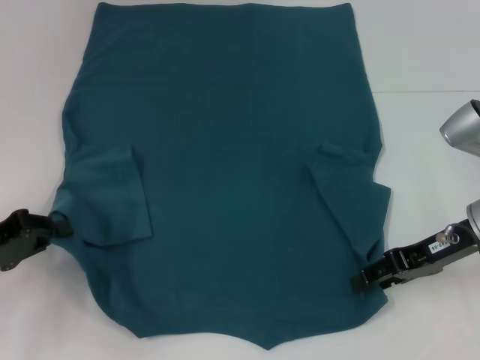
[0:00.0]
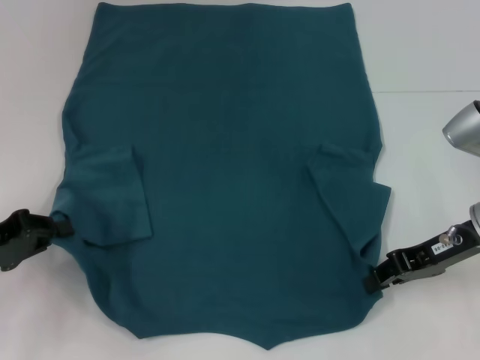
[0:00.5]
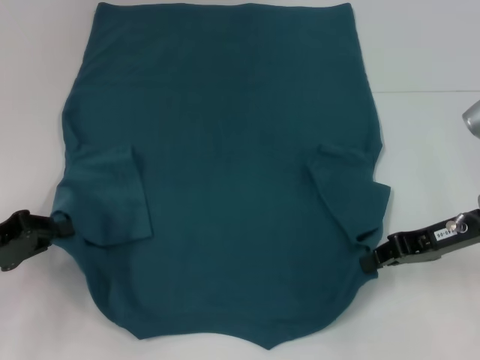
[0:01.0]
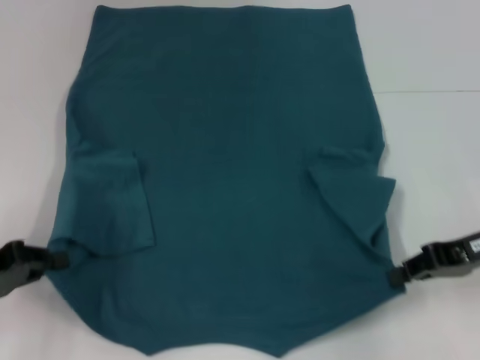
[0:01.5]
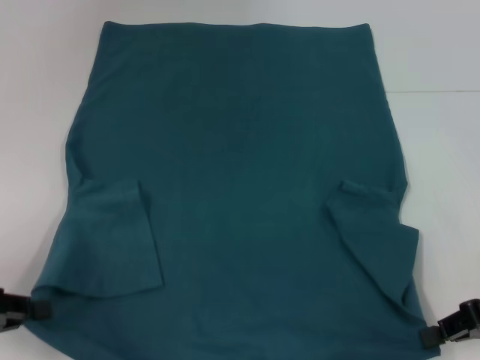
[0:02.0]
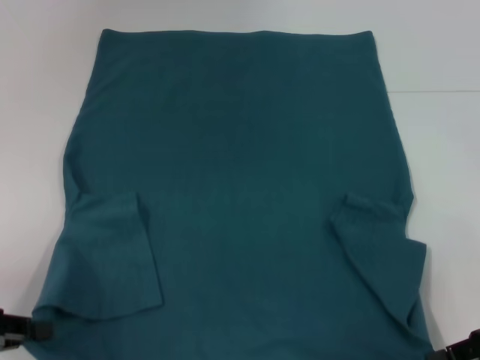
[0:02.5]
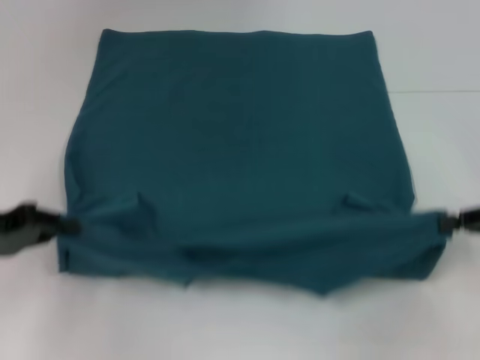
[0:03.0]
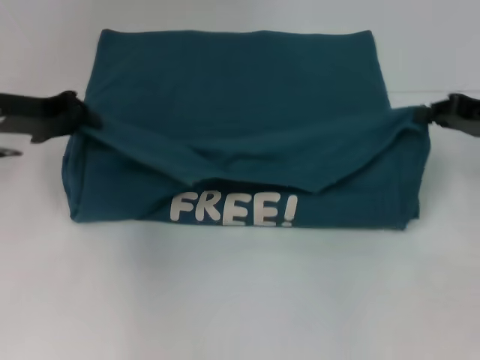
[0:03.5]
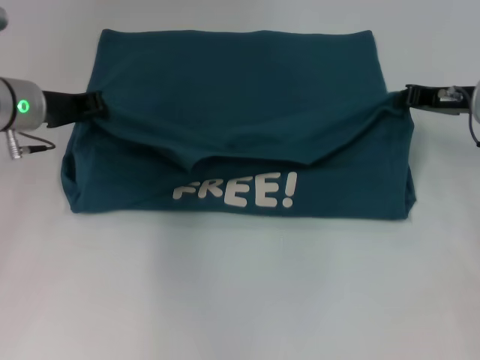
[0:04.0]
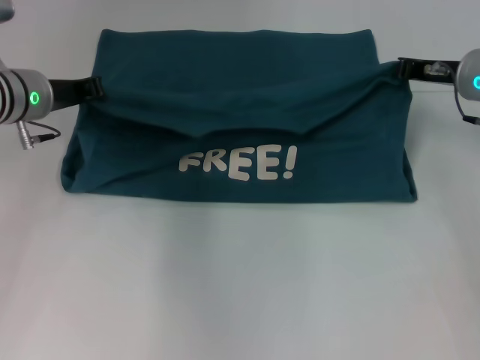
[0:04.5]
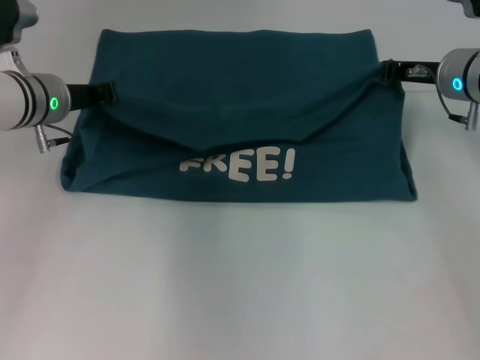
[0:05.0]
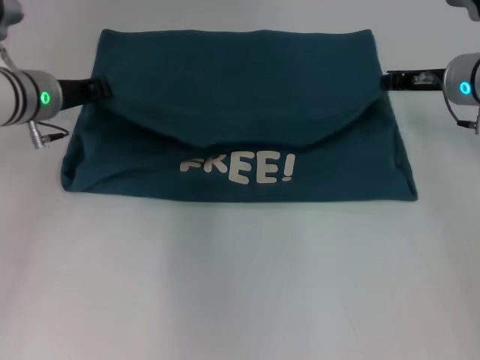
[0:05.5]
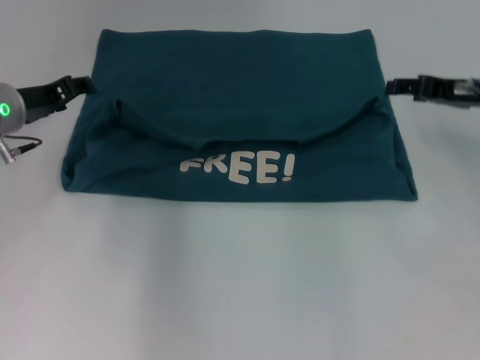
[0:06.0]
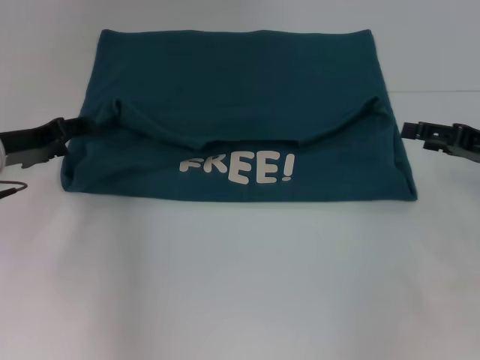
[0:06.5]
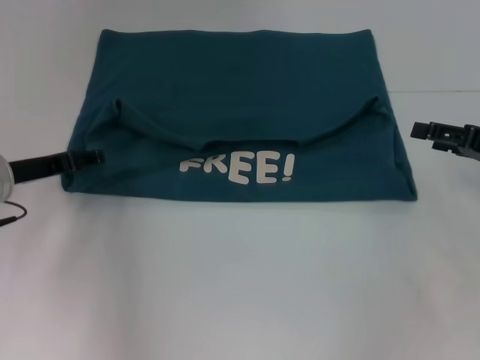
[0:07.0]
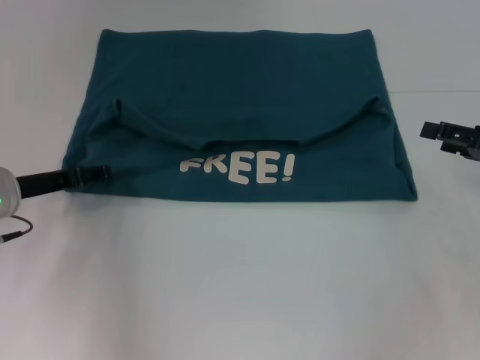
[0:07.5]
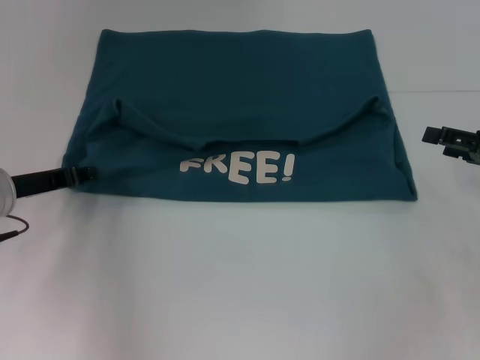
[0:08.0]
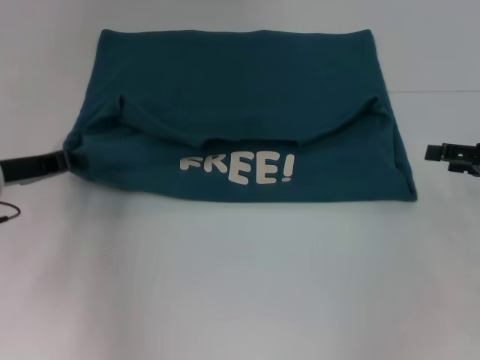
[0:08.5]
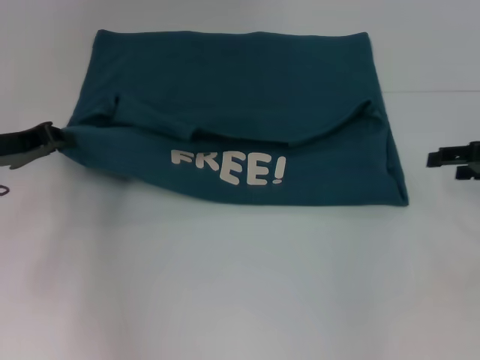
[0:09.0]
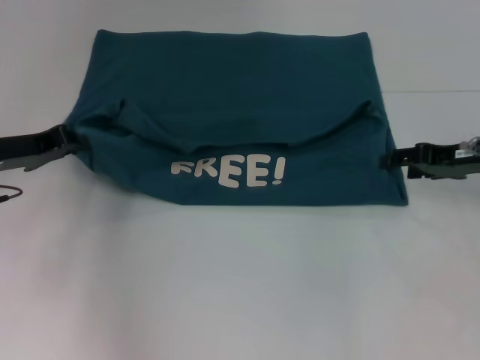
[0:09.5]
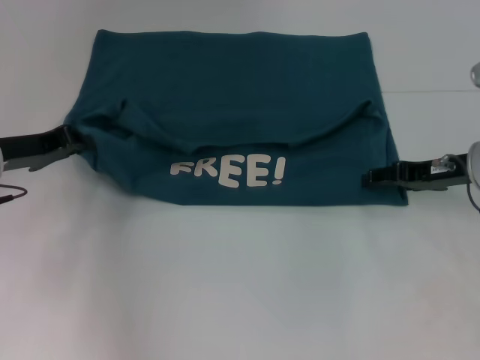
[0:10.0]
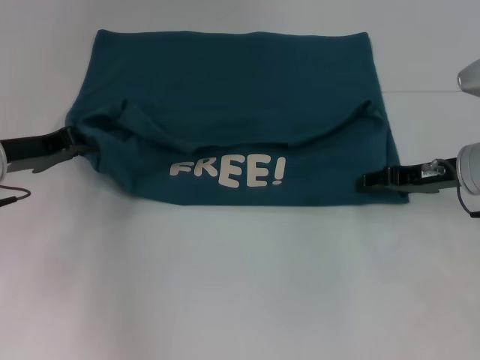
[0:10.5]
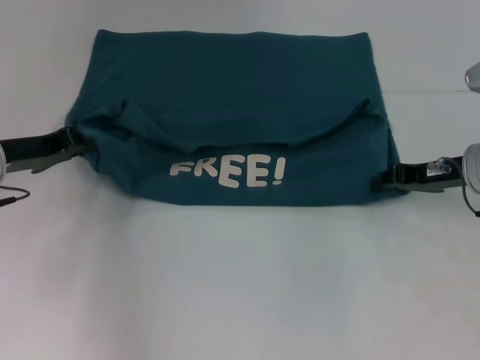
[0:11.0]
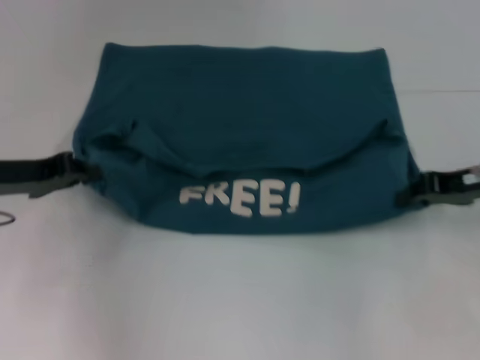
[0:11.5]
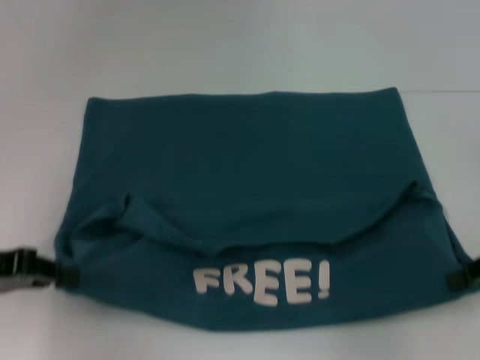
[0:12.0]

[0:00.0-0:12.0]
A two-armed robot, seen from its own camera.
Step, 0:01.5 to 0:05.5: Fold the clothes to the left.
Step, 0:01.5 to 0:05.5: Fold the clothes to the right.
0:00.0 to 0:02.0: The right gripper is displaced to the right and backward by roughly 10 cm, and closes up. The left gripper is displaced backward by approximately 5 cm.
0:02.0 to 0:04.0: The right gripper goes approximately 15 cm forward. Meanwhile the left gripper travels forward and to the right by approximately 25 cm.
0:04.0 to 0:06.0: The left gripper opens. The right gripper opens up.
0:06.0 to 0:08.0: The left gripper goes some 10 cm backward and downward; the right gripper shifts approximately 10 cm backward and to the right.
0:08.0 to 0:10.0: The right gripper is displaced to the left and forward by roughly 10 cm, while the left gripper closes its fingers.
0:10.0 to 0:12.0: The left gripper shifts roughly 10 cm backward. Meanwhile the right gripper goes some 10 cm backward and to the right, and closes up.

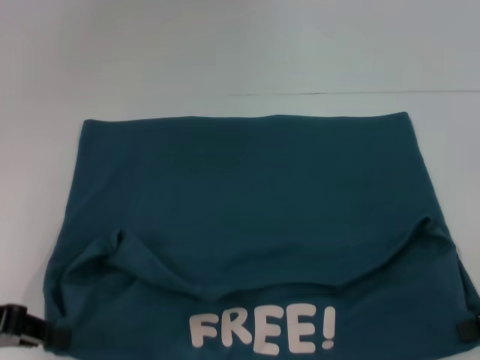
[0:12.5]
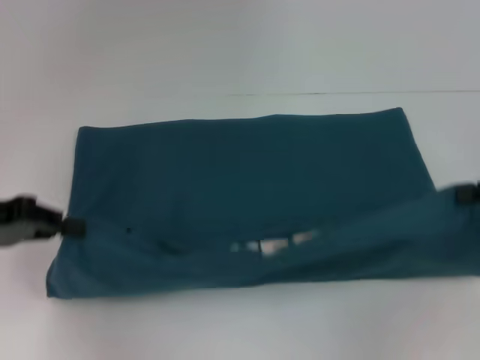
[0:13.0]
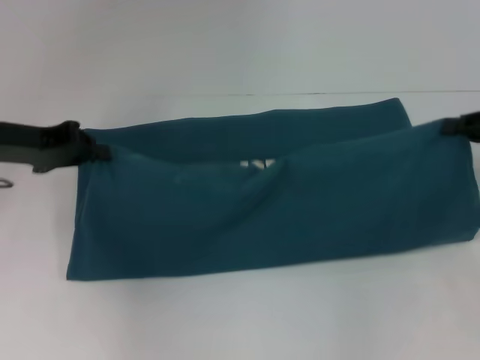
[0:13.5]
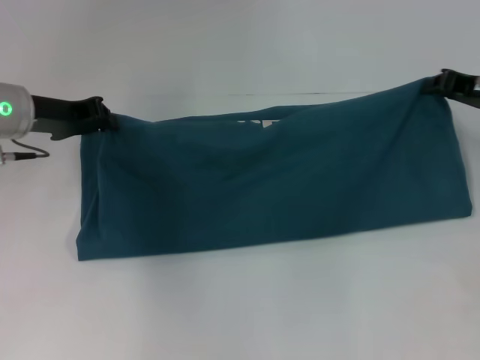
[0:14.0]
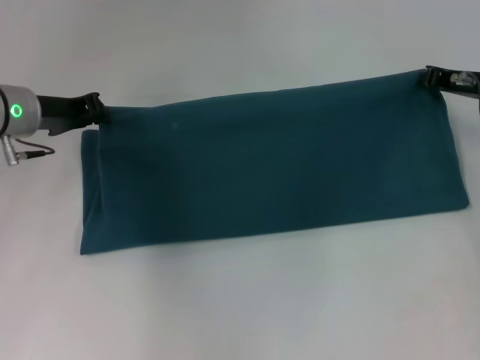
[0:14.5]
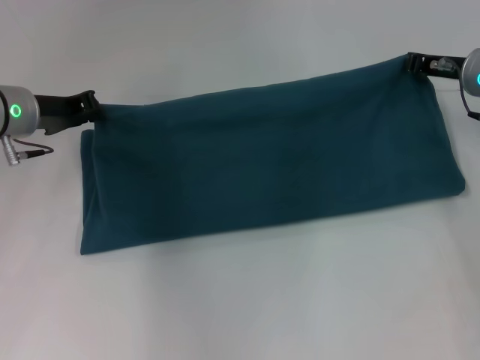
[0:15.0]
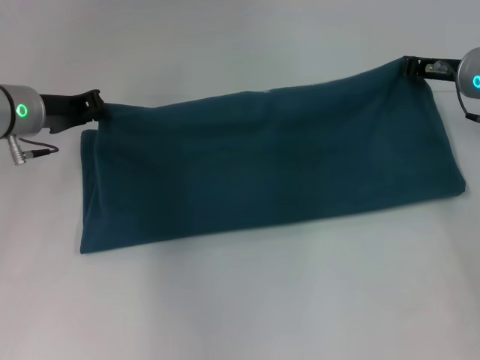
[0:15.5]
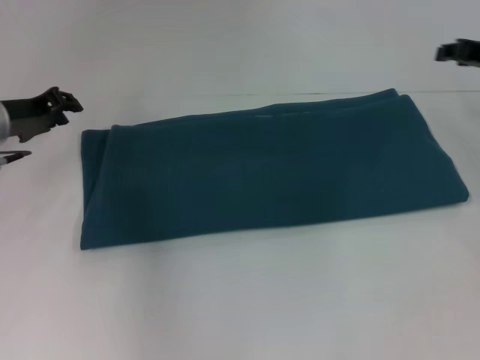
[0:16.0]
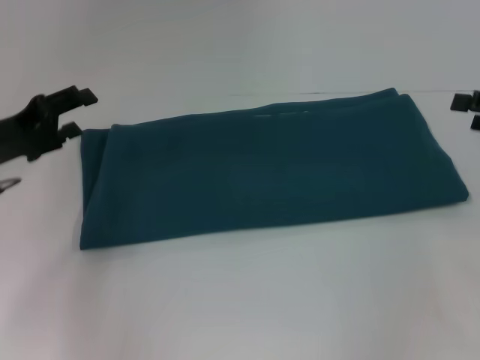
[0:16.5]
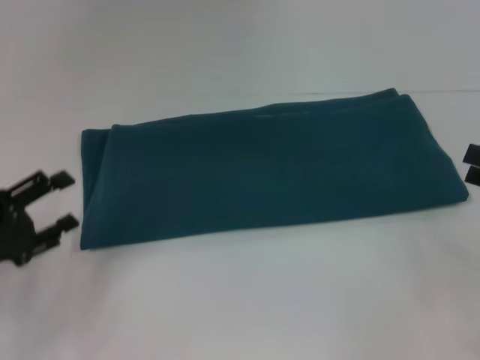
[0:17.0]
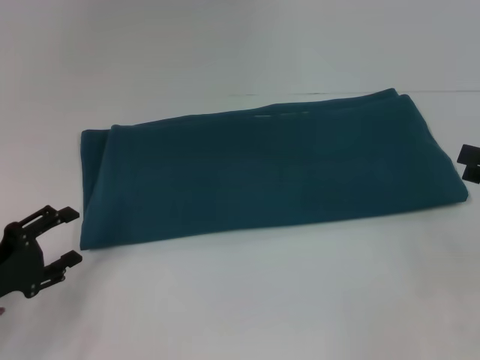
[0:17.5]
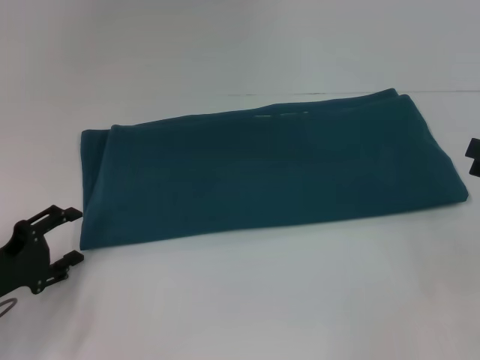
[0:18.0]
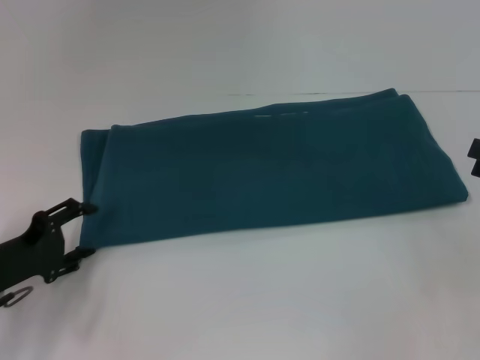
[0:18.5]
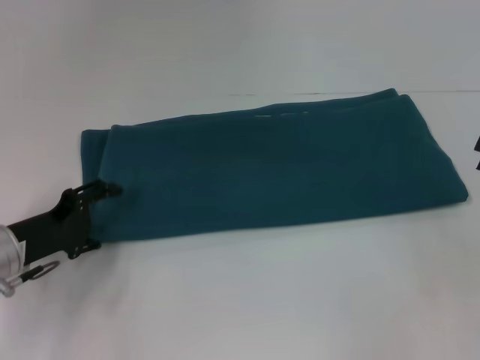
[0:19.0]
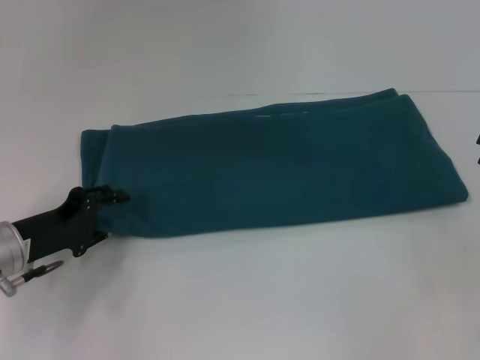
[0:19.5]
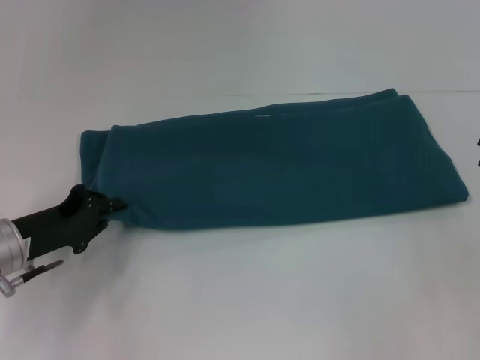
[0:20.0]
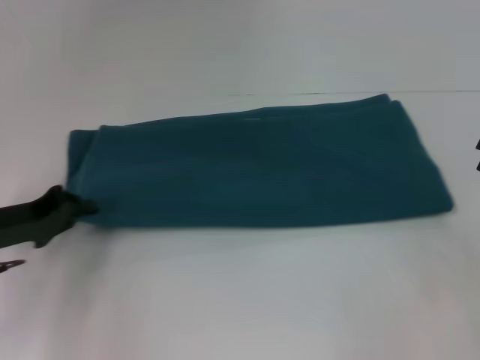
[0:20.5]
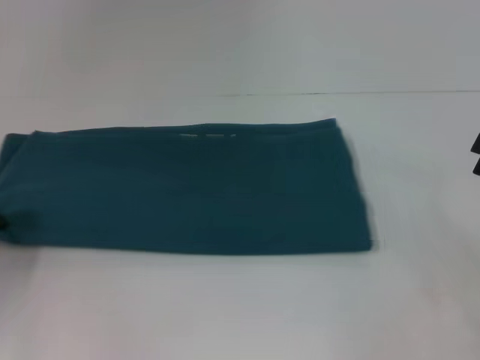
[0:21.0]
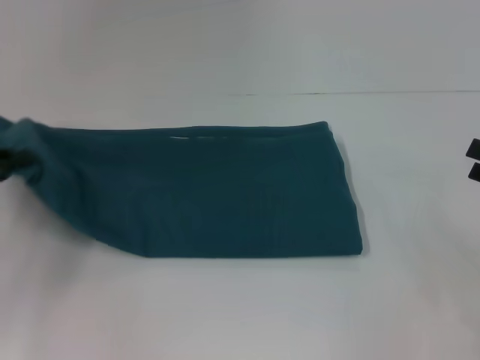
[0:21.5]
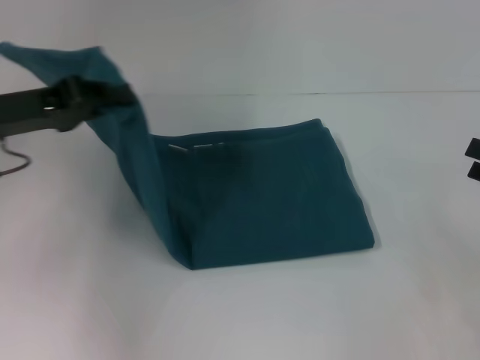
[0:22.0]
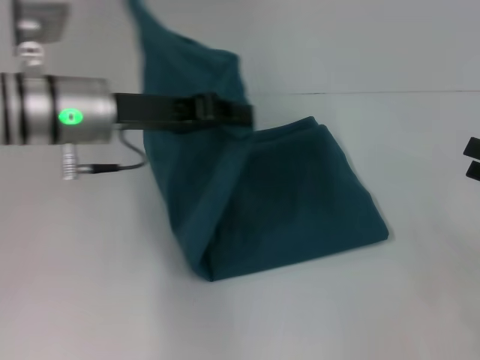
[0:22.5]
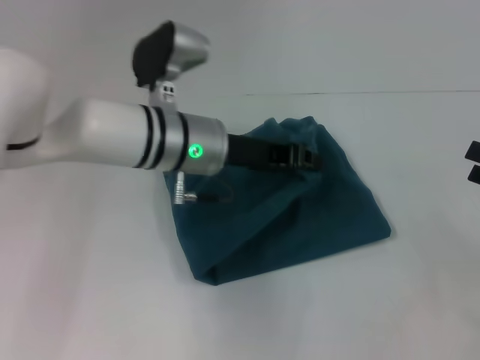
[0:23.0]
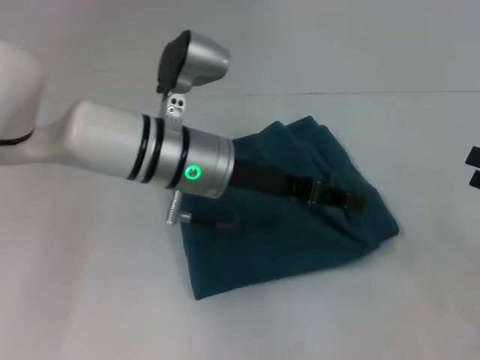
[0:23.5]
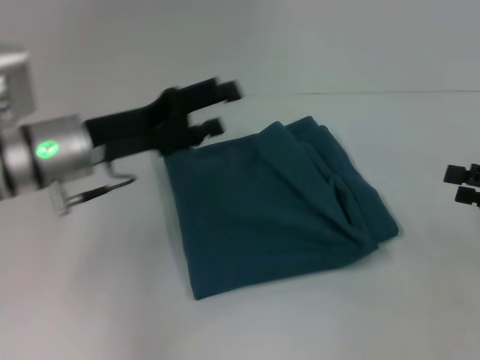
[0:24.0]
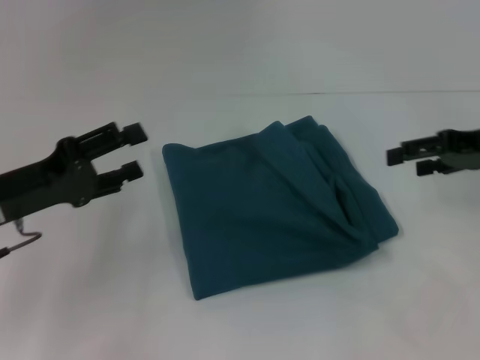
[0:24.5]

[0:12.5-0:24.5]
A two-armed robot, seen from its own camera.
Step, 0:12.5 to 0:15.5: Fold the clothes to the right.
Step, 0:12.5 to 0:23.5: Fold the clothes to the left.
0:12.5 to 0:14.5: The two grippers go about 20 cm forward.
0:14.5 to 0:16.5: The right gripper is displaced backward and to the right by about 15 cm, and opens its fingers, while the left gripper heads backward, covering approximately 10 cm, and opens its fingers.
0:16.5 to 0:18.5: The left gripper goes some 10 cm downward and backward.
0:18.5 to 0:20.5: The left gripper changes place by roughly 5 cm, and closes its fingers.
0:20.5 to 0:22.5: The left gripper travels to the right, upward and forward by some 20 cm.
0:22.5 to 0:24.5: The right gripper goes some 15 cm forward, to the left and upward. The left gripper goes some 15 cm to the left, backward and downward, and opens up.

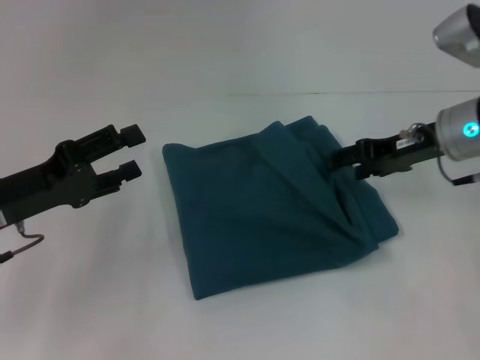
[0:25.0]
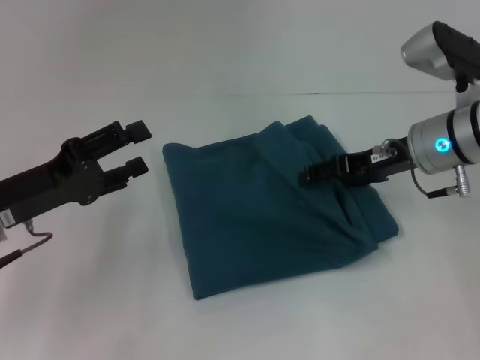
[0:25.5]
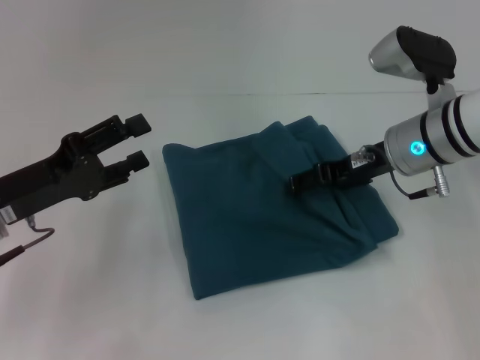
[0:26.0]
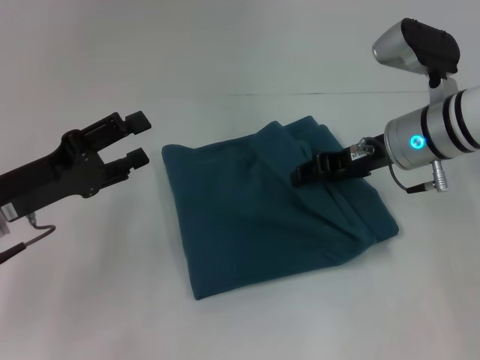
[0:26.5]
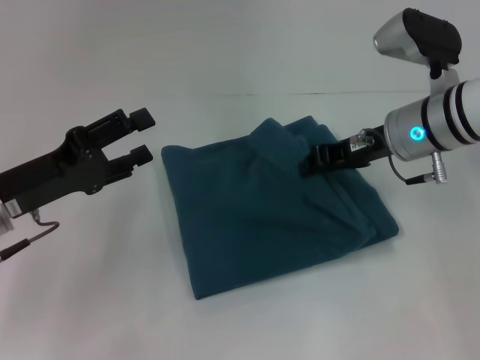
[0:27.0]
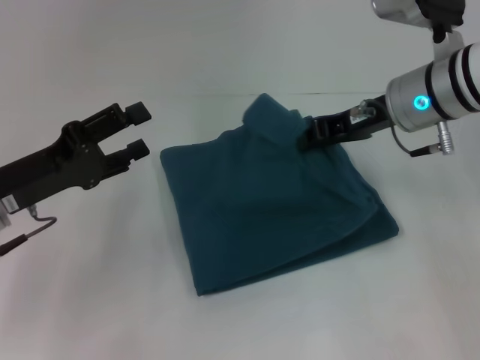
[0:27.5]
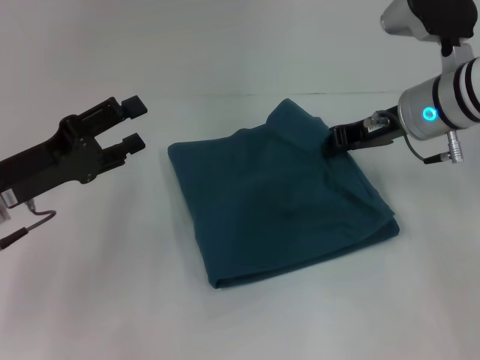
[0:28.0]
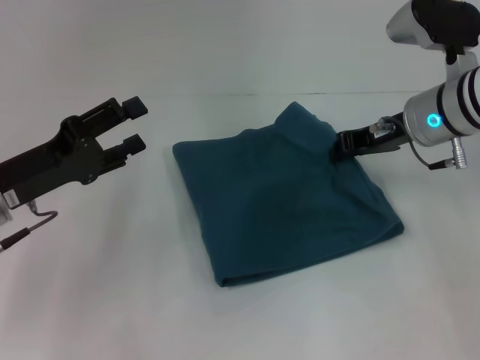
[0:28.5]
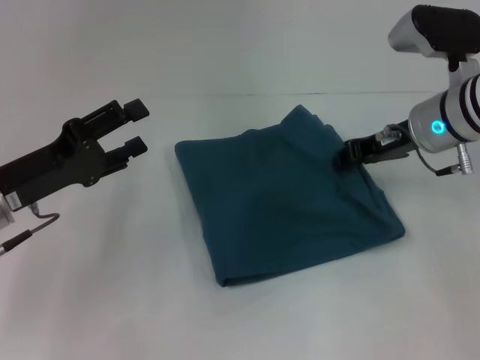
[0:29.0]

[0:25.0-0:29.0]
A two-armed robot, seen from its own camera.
0:25.0 to 0:27.0: The right gripper is displaced to the left by some 5 cm, and closes up.
0:27.0 to 0:29.0: The grippers make only small movements.
